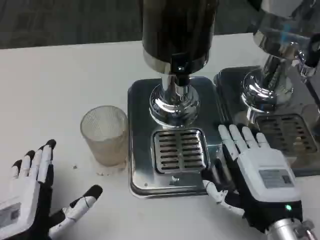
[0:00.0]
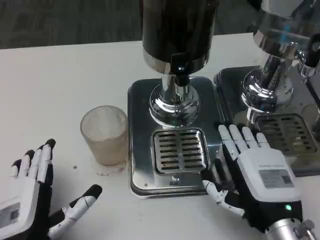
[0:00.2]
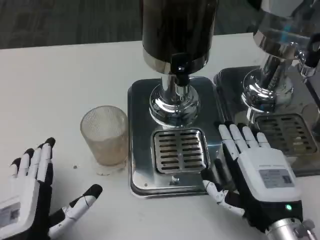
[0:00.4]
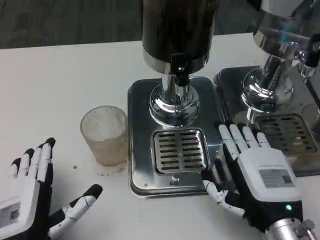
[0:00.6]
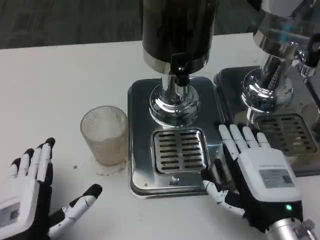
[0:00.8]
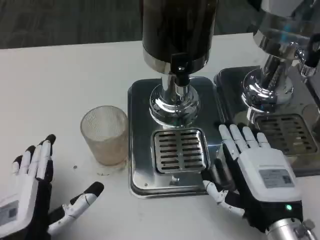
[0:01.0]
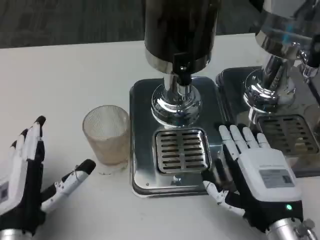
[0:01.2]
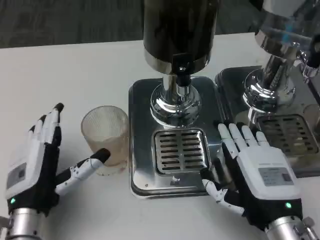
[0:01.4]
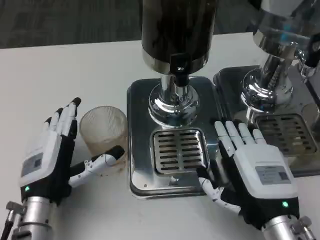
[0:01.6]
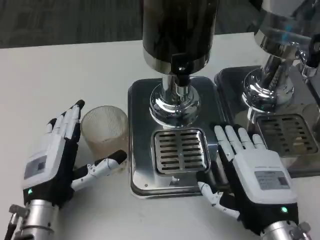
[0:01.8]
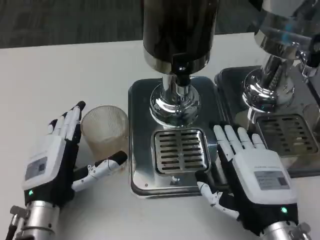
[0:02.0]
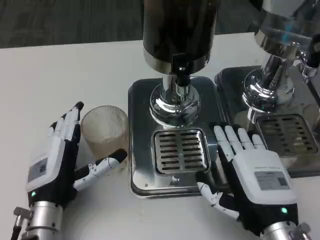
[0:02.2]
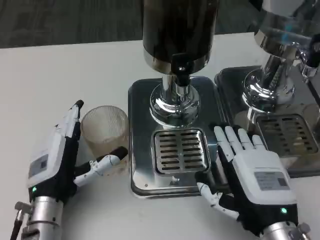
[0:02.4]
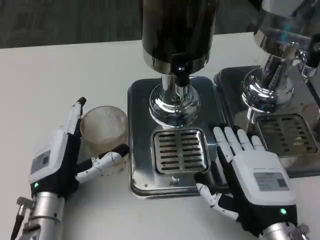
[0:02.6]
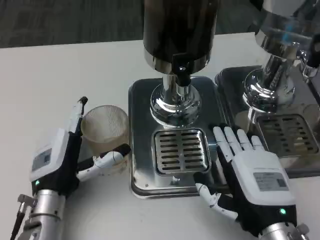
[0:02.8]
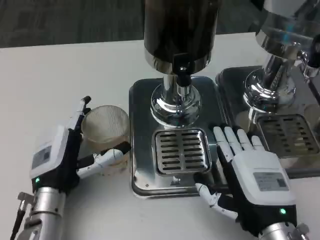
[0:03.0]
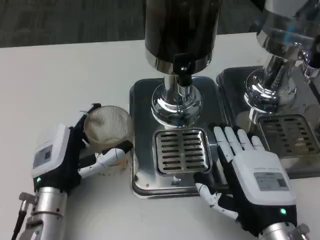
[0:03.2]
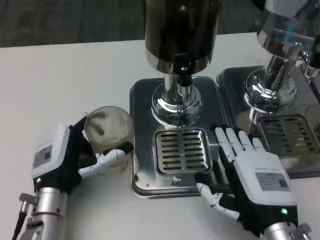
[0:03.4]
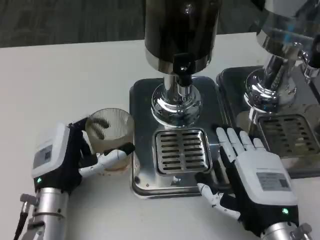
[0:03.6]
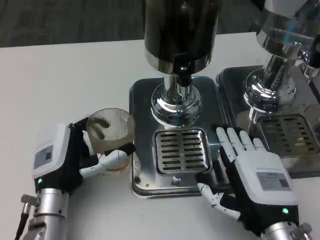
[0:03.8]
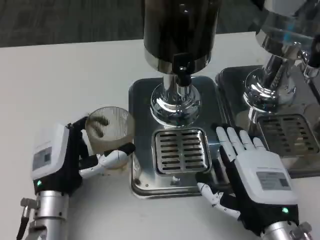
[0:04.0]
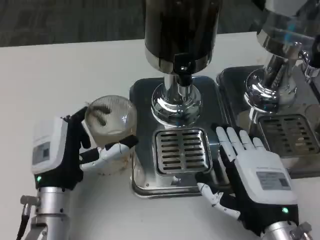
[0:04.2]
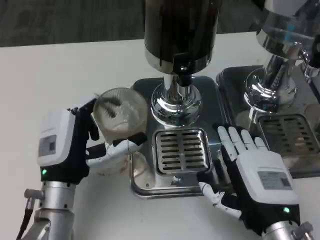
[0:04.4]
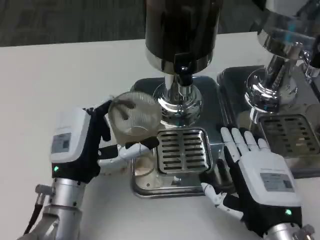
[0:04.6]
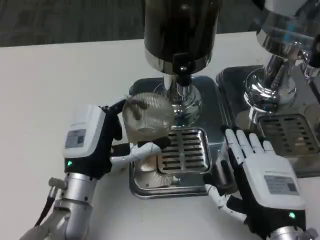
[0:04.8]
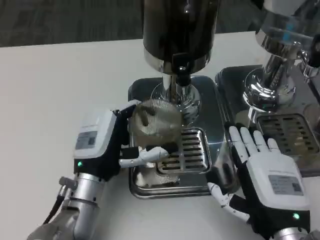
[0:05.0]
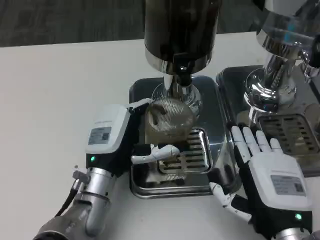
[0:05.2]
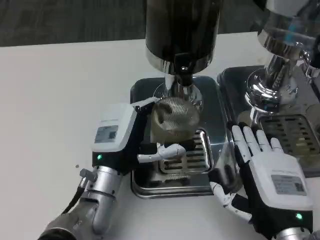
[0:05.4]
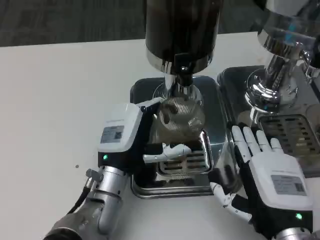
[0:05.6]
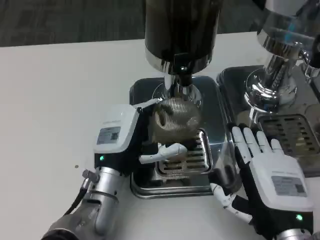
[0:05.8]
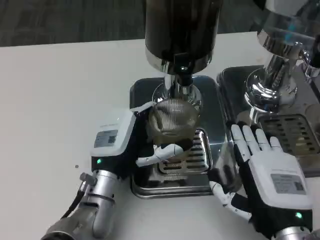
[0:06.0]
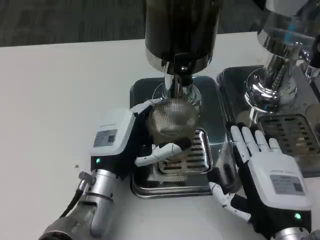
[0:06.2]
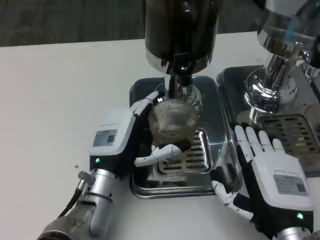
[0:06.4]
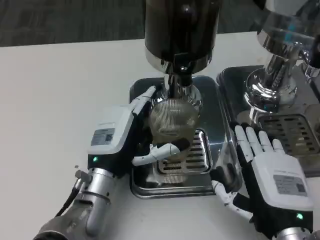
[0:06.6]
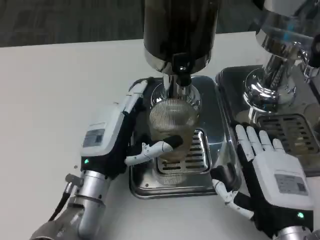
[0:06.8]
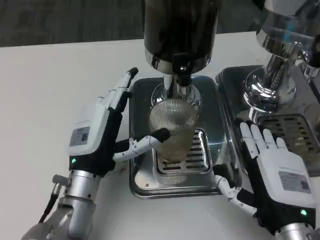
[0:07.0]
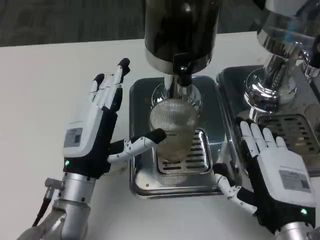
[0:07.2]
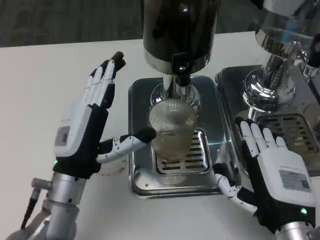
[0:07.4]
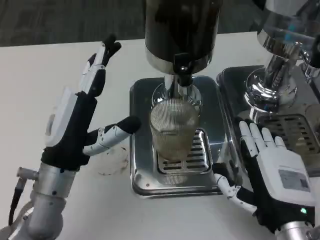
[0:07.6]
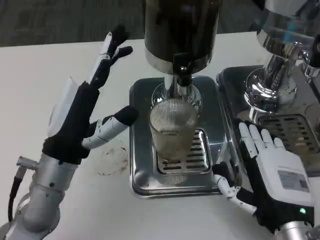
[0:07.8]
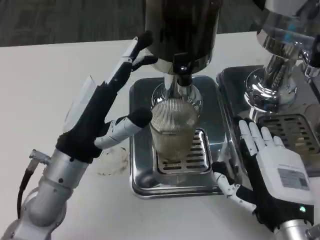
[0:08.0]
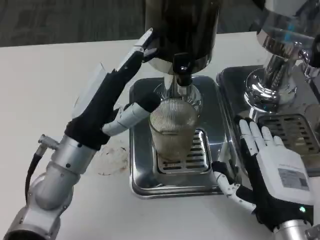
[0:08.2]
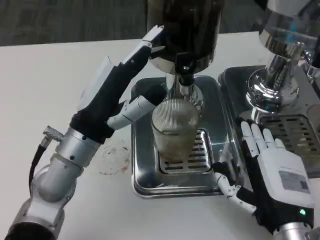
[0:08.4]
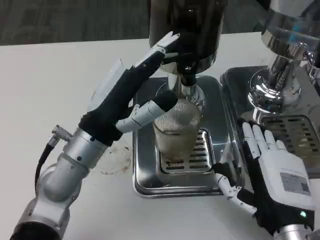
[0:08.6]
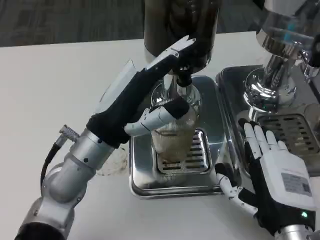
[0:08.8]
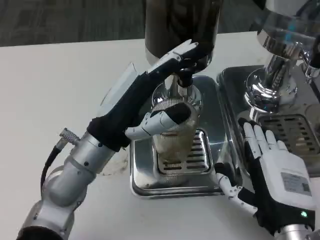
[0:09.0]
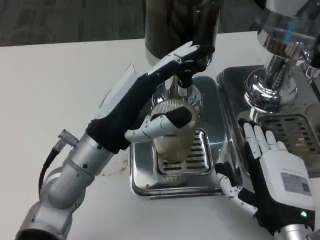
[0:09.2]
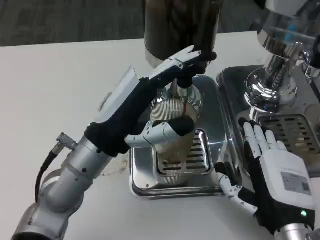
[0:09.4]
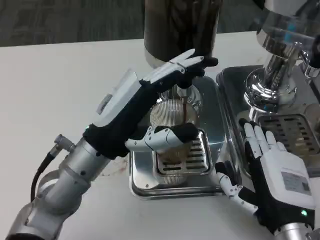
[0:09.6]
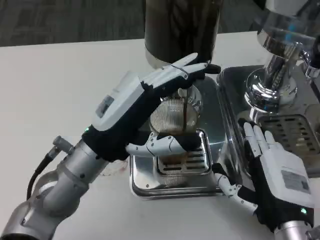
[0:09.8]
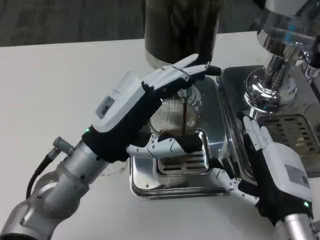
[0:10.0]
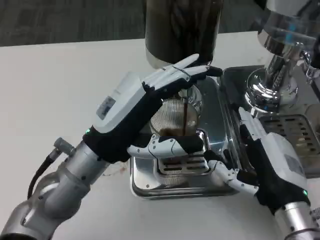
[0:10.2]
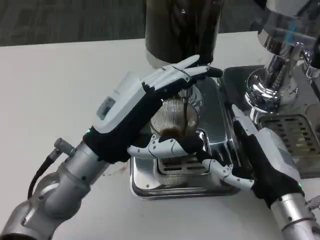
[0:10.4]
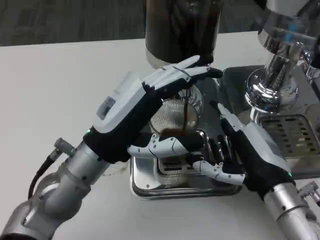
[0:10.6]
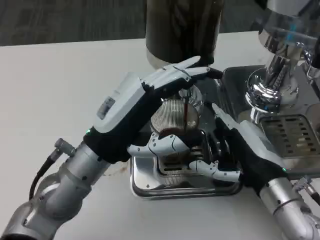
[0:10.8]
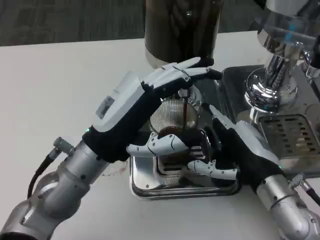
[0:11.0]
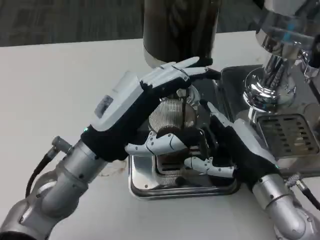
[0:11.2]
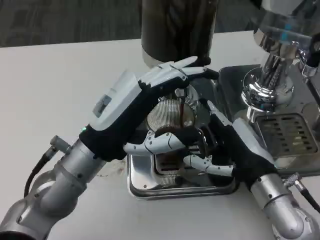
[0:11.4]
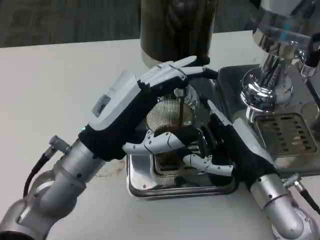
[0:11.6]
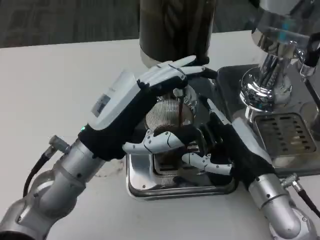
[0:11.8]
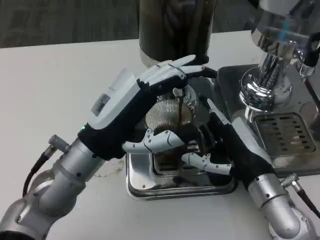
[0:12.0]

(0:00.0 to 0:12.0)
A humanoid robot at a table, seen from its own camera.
Task of the whole recording: Grasp the cup under the faucet to collect the drink, then remove the cup.
0:00.0 - 0:01.6: The left hand goes approximately 10 cm forward.
0:04.4 - 0:06.0: The left hand goes approximately 5 cm to the right.
0:06.0 - 0:07.6: The left hand travels to the left and upward by about 10 cm.
0:07.6 - 0:09.0: The left hand changes place by approximately 5 cm.

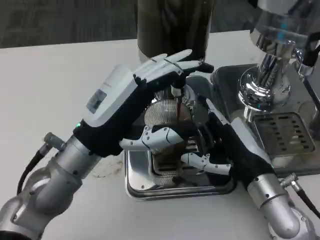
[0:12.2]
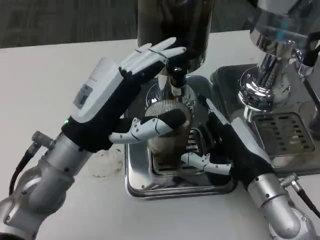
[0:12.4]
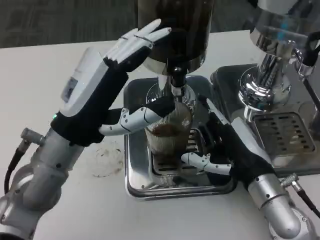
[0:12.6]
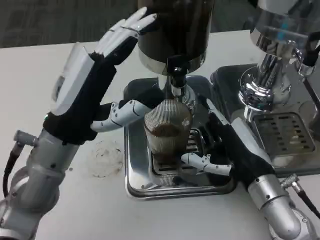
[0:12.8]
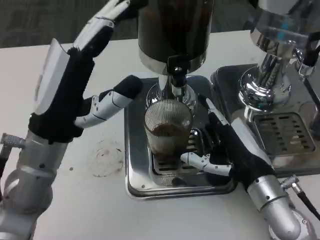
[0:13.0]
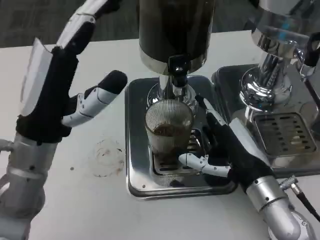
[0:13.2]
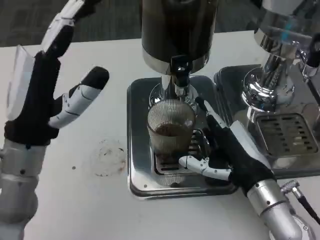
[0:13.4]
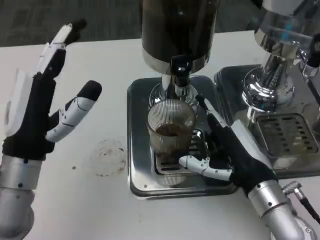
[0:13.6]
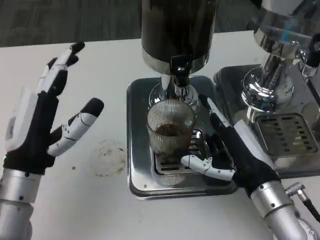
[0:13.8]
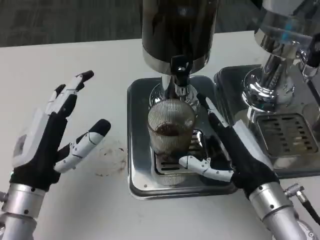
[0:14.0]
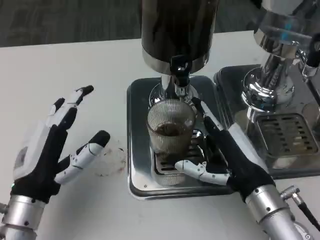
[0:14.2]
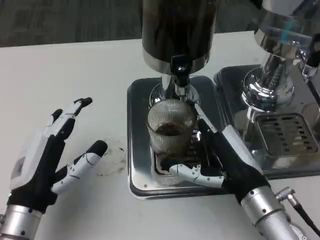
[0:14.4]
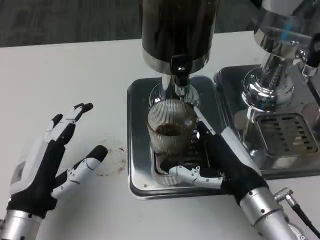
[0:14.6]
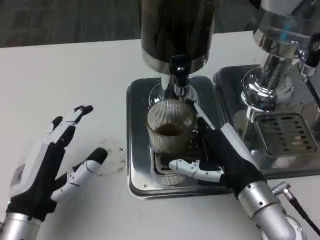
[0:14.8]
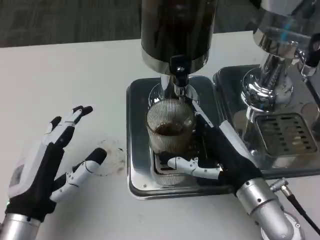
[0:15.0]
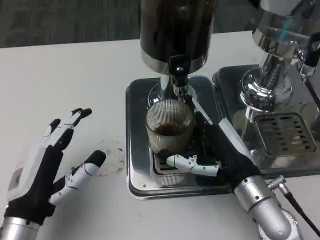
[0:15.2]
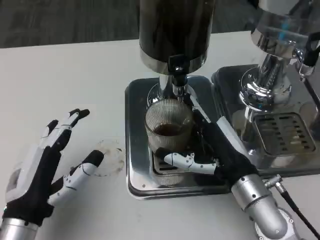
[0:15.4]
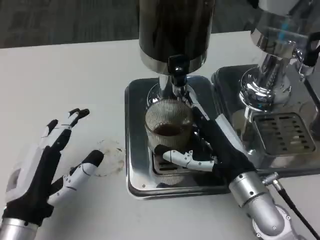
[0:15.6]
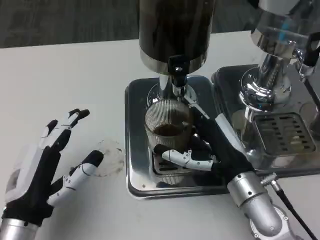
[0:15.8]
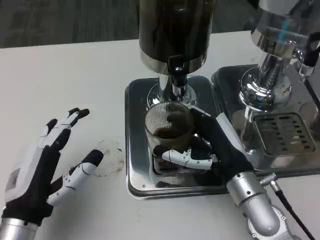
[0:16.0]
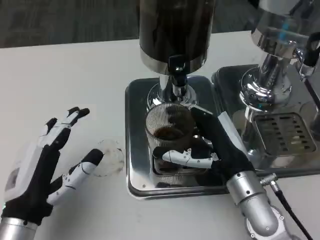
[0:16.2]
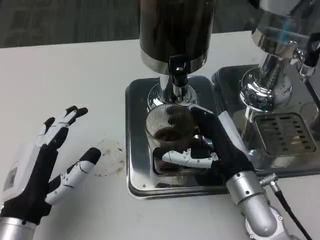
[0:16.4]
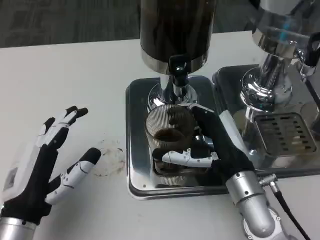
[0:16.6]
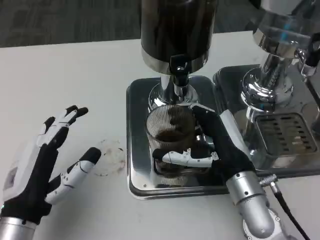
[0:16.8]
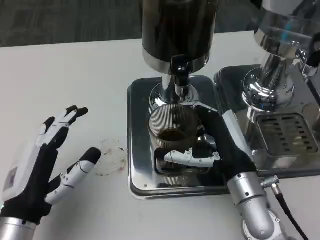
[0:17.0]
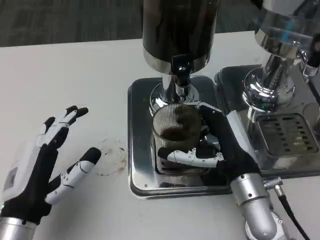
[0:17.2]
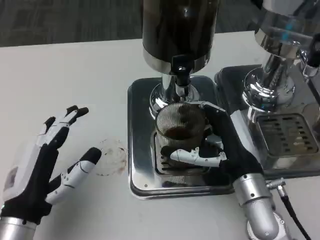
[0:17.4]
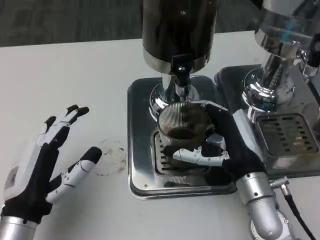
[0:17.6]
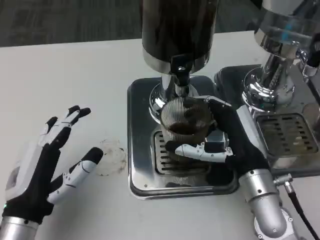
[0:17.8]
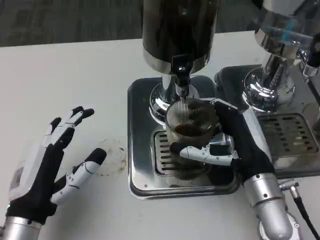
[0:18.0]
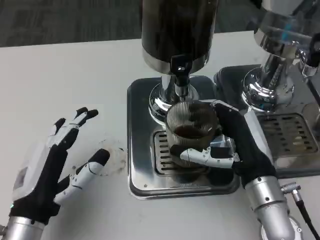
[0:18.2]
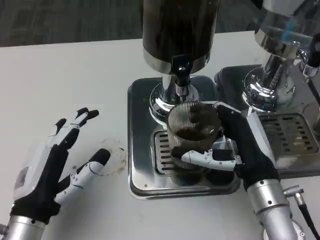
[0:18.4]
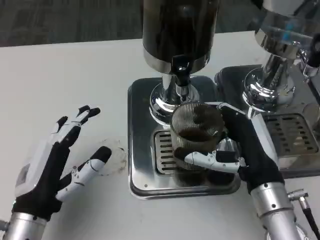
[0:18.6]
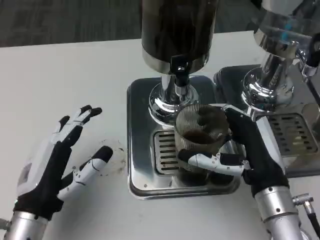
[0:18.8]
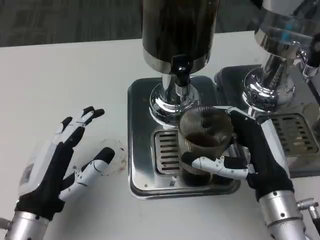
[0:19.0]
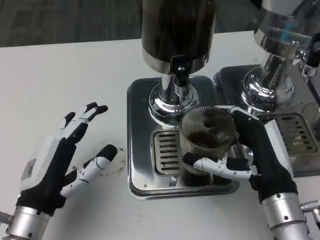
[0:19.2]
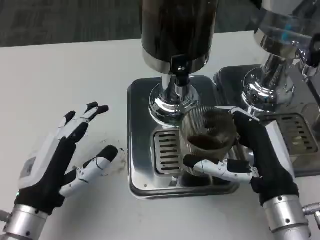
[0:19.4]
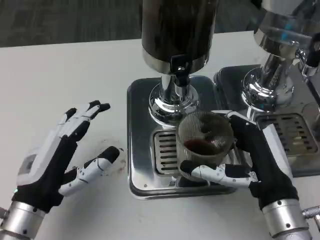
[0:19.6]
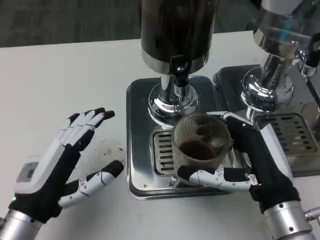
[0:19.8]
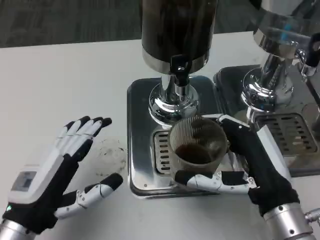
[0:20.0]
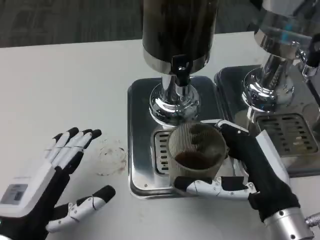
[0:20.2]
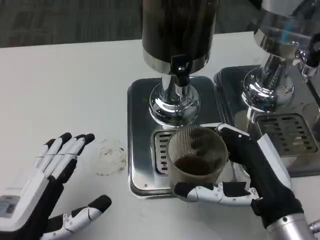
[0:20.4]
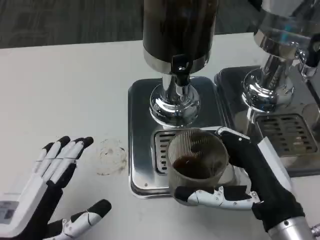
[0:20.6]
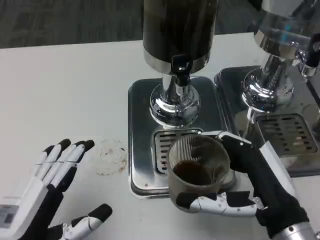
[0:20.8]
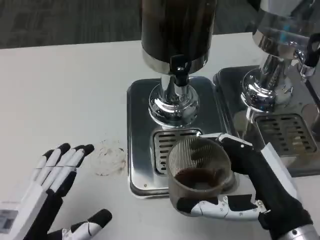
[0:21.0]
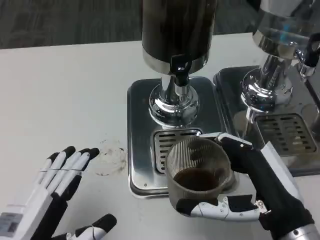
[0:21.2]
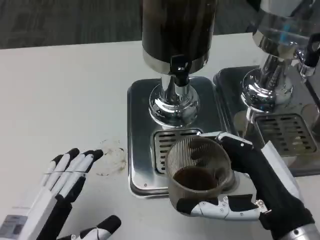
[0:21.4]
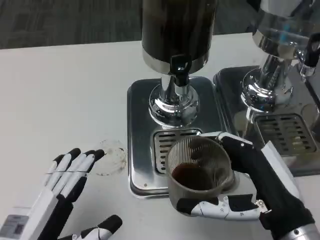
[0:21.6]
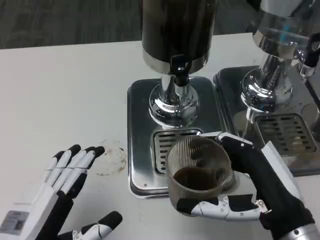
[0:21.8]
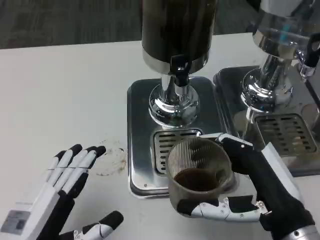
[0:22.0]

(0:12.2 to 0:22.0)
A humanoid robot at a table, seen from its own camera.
Task of the whole recording: Grasp the cup under the faucet to collect the drink, then remove the cup.
0:12.2 - 0:13.6: The left hand is displaced to the left by roughly 5 cm.
0:13.6 - 0:15.0: The left hand goes about 10 cm downward and backward.
0:15.0 - 0:16.4: The hands move only a little.
0:17.8 - 0:19.2: The right hand moves some 5 cm.
0:19.2 - 0:20.6: The left hand shifts some 5 cm backward.
0:20.6 - 0:22.0: The hands move only a little.

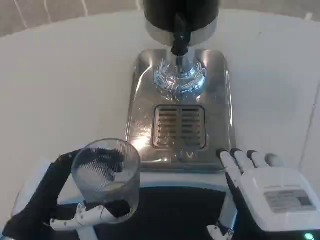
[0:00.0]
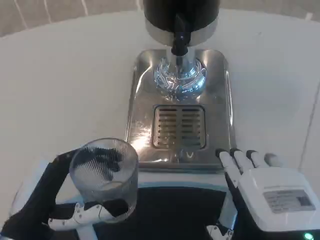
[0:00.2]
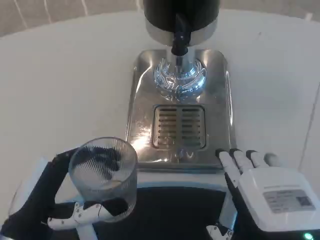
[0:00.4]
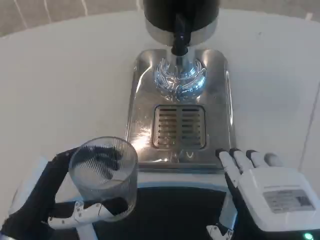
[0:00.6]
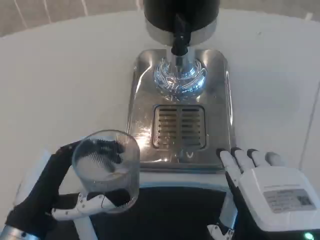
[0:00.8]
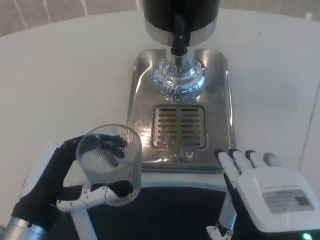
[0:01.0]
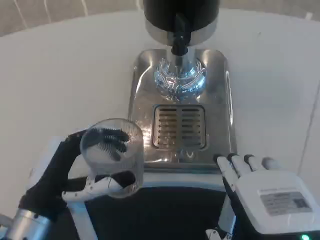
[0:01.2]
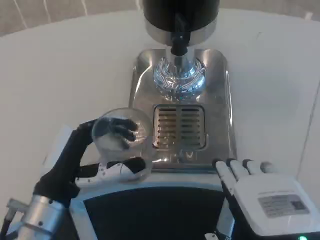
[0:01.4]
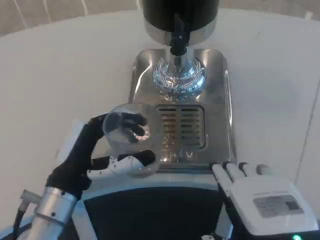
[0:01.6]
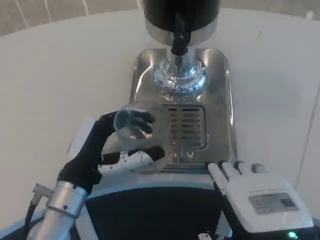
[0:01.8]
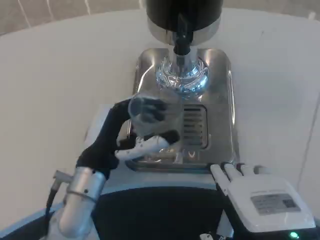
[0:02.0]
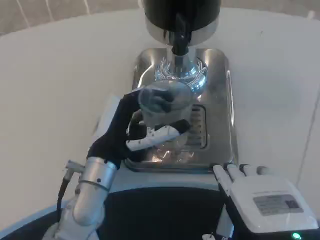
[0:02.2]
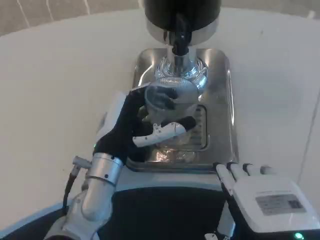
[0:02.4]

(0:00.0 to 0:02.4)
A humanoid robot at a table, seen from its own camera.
Task of the whole recording: Grasp the cup under the faucet to collect the drink, then remove the cup.
0:00.0 - 0:01.2: The hands move only a little.
0:01.2 - 0:02.4: The left hand goes approximately 15 cm to the right and forward.
